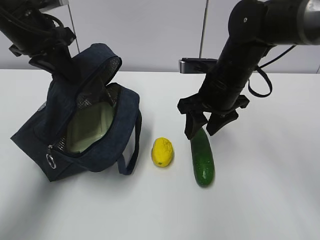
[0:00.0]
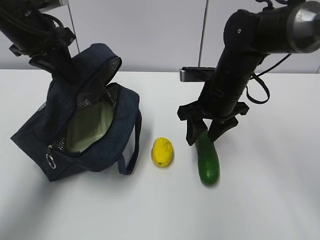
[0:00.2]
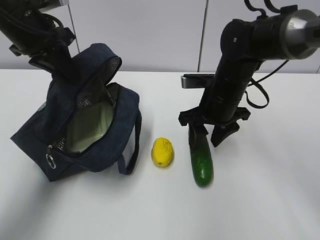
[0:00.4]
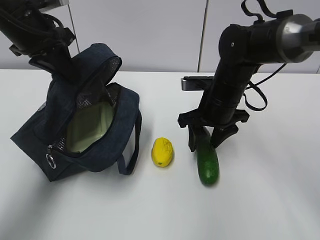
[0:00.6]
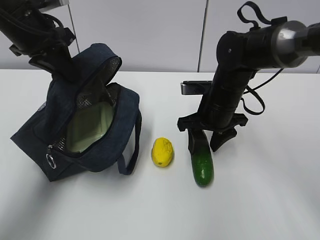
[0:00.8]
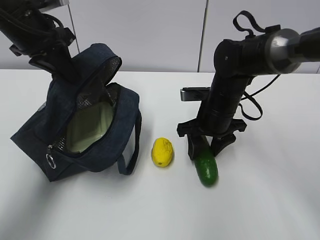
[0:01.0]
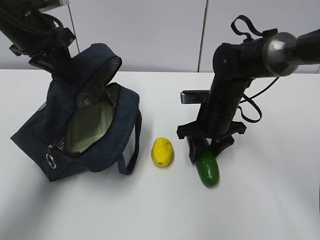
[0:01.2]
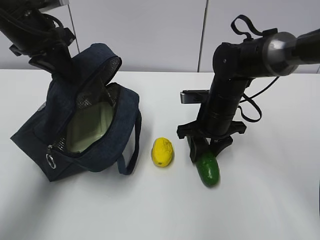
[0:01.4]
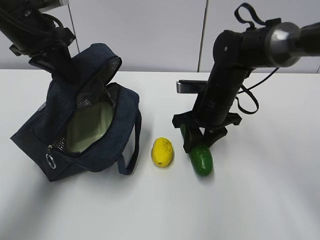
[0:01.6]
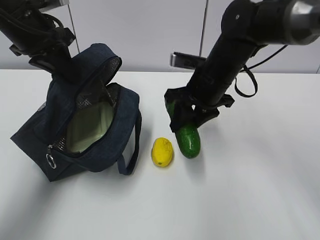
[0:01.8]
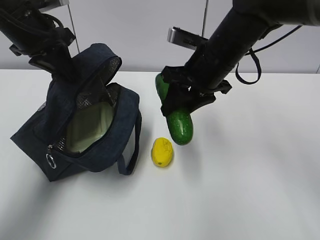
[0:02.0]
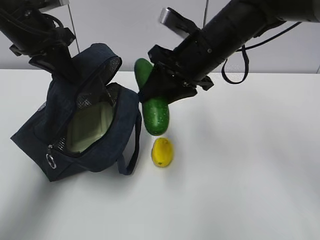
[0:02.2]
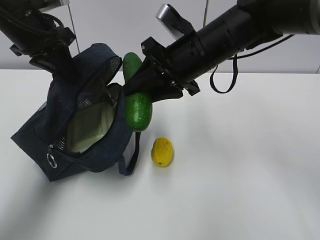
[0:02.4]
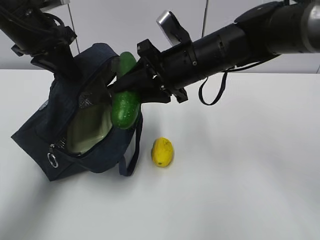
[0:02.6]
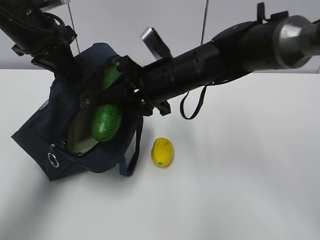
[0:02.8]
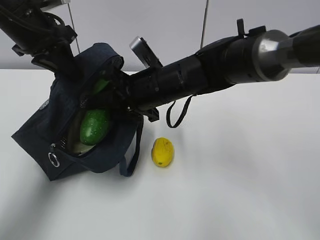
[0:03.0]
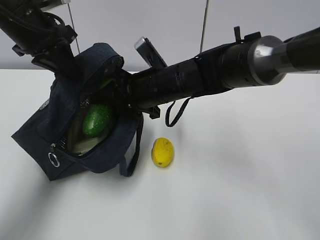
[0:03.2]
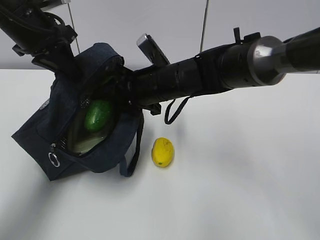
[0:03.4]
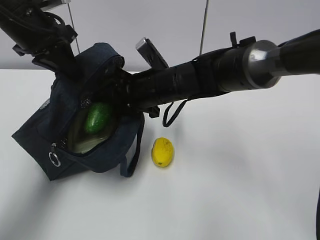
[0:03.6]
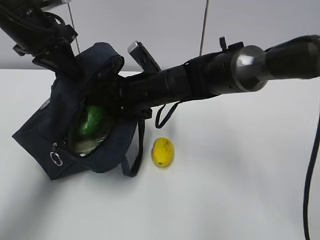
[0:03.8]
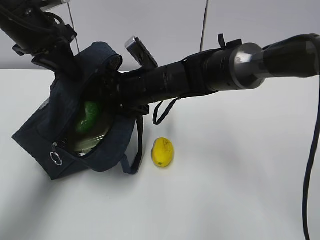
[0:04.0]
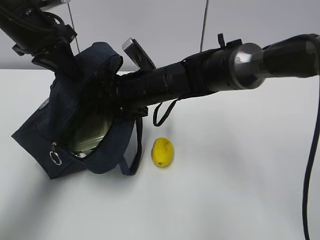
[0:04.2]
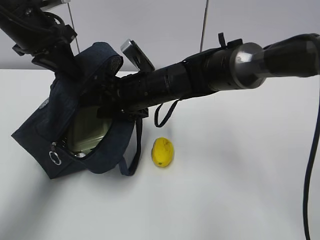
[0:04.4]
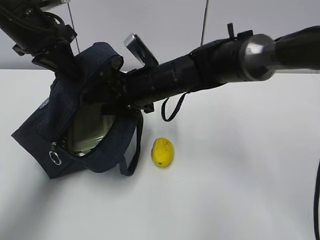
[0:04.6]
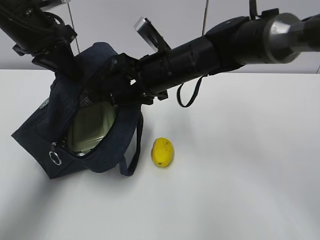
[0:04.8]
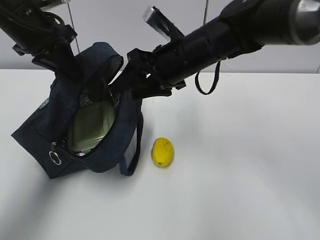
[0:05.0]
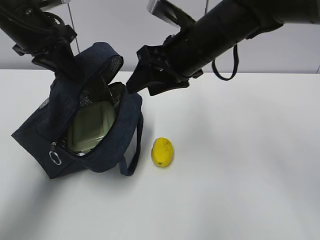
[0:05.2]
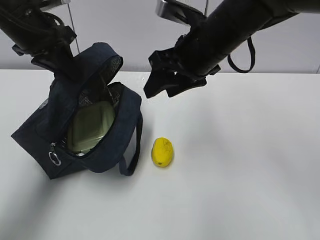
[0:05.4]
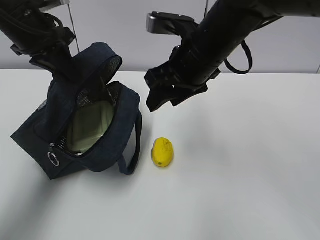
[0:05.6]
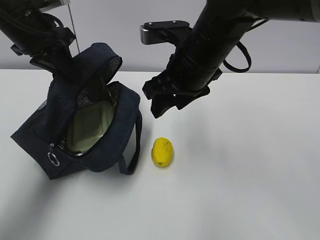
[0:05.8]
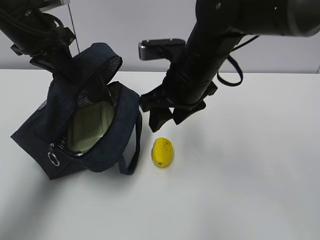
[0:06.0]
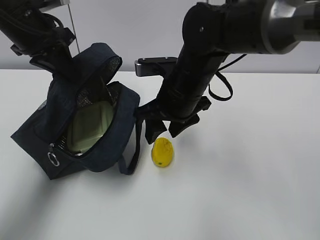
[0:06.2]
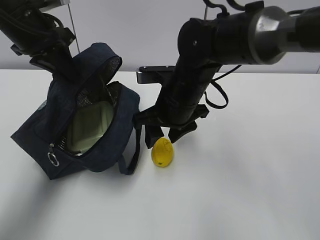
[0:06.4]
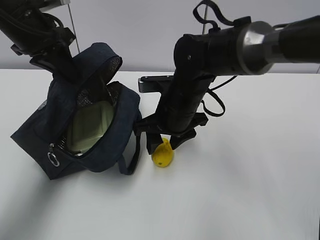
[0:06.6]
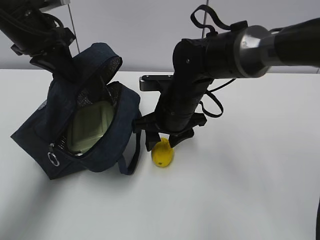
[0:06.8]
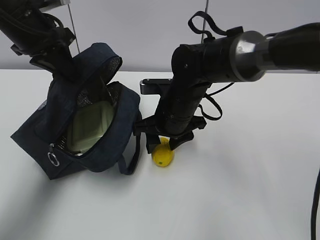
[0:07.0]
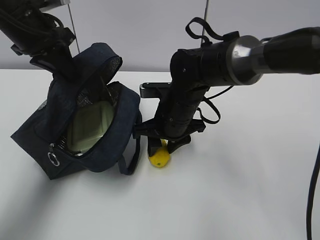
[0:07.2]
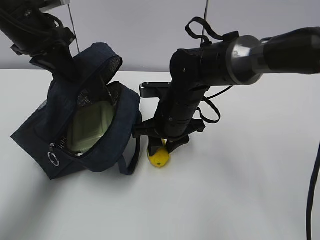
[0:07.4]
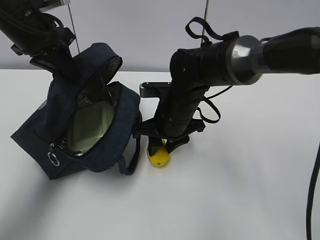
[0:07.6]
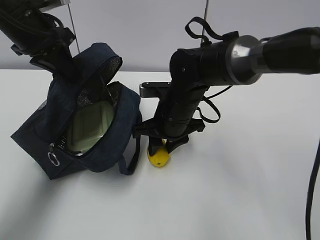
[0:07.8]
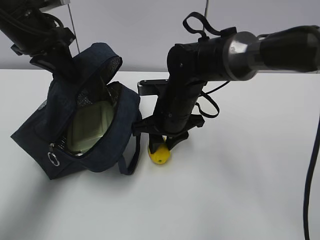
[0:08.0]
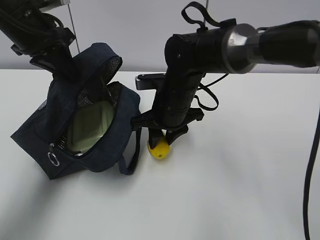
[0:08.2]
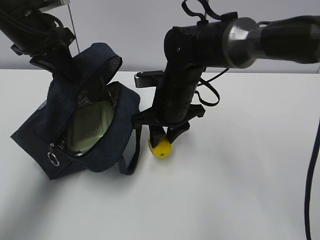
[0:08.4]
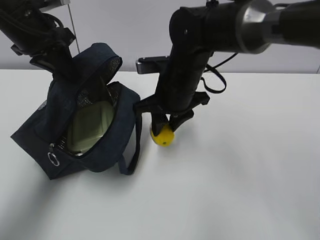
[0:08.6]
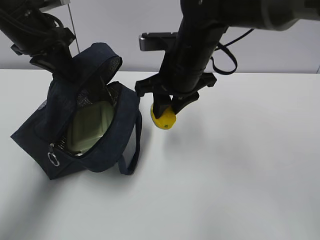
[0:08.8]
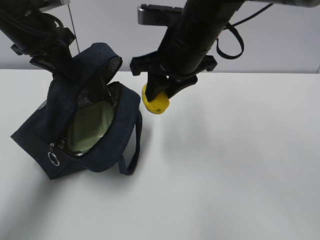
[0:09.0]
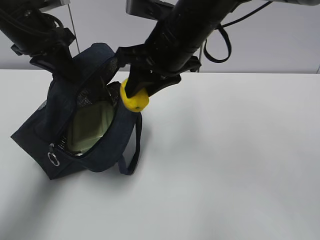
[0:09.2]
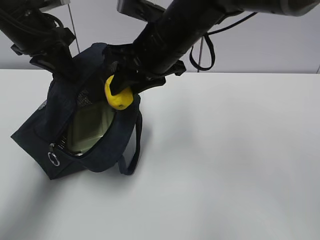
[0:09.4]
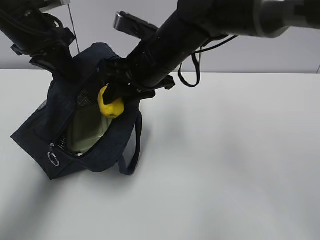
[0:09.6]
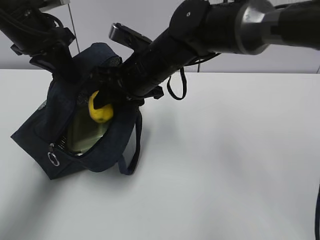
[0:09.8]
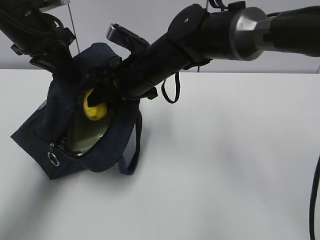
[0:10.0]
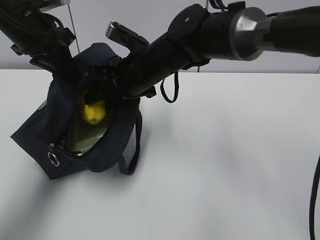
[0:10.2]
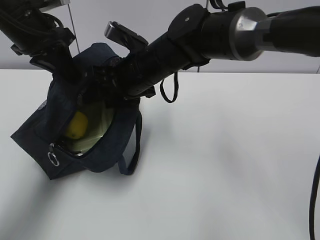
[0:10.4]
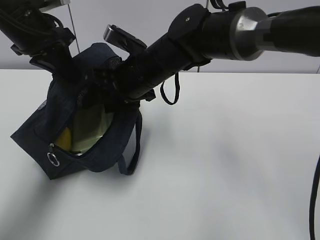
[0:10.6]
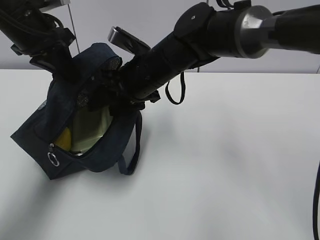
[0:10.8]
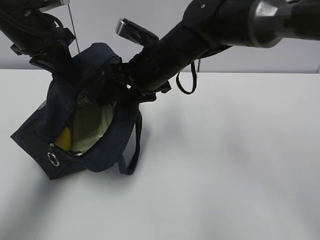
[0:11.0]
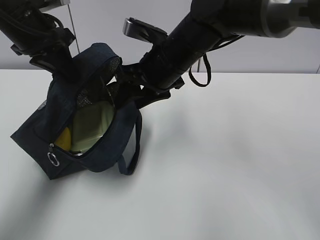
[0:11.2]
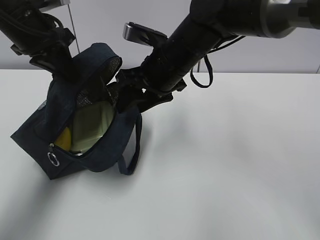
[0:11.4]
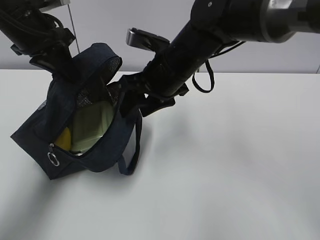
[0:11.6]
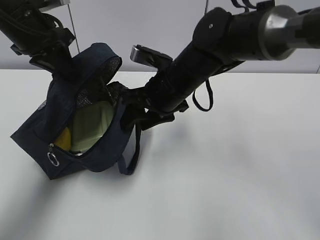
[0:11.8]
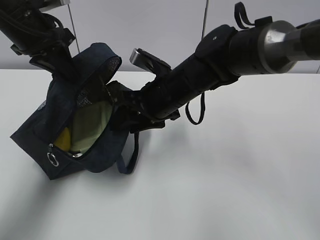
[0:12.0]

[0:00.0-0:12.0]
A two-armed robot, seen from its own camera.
Step, 0:00.0 to 0:02.4: Grab the lemon with your right hand.
Step, 0:04.8 to 0:06.2: Grab the lunch bag with your right hand.
Step, 0:06.4 to 0:10.2: Move the lunch bag to the right.
0:01.6 to 0:03.0: The right gripper shifts about 10 cm to the left.
0:03.0 to 0:04.4: The grippers stay close to where they were, moving slightly.
0:04.4 to 0:06.0: The right gripper travels to the right and upward by about 10 cm.
0:06.0 to 0:07.6: The right gripper shifts about 10 cm downward.
0:07.6 to 0:09.0: The right gripper goes about 15 cm upward.
0:09.0 to 0:10.4: The right gripper heads downward and to the left, covering some 10 cm.
0:10.4 to 0:12.0: The right gripper moves about 5 cm.

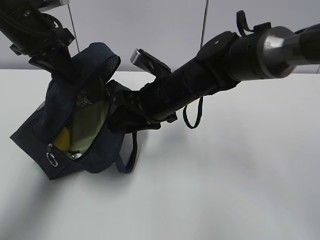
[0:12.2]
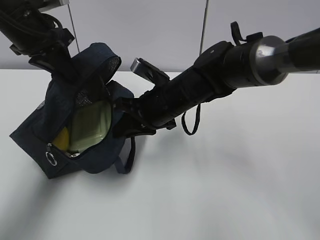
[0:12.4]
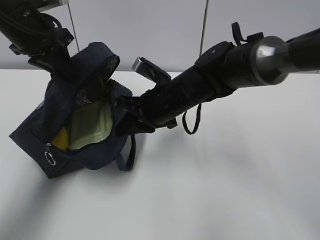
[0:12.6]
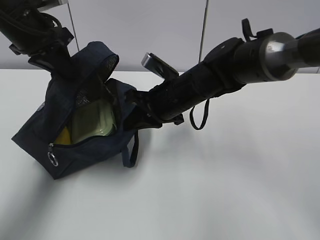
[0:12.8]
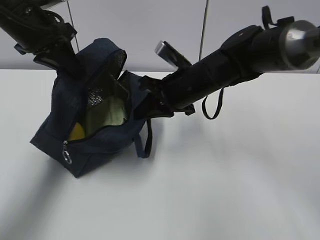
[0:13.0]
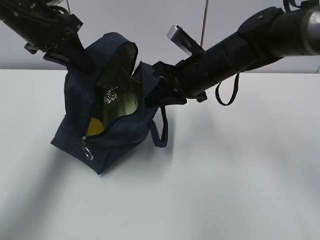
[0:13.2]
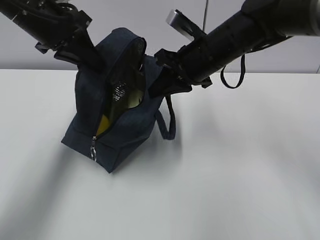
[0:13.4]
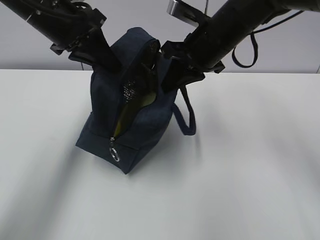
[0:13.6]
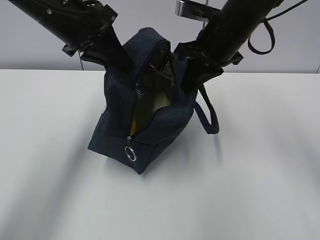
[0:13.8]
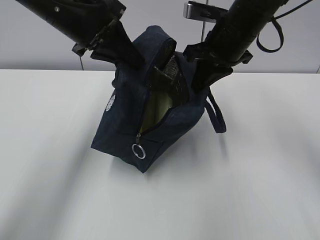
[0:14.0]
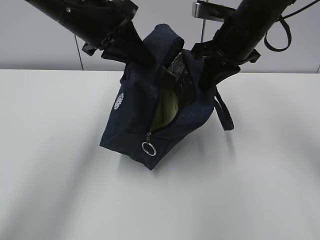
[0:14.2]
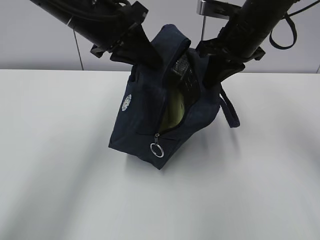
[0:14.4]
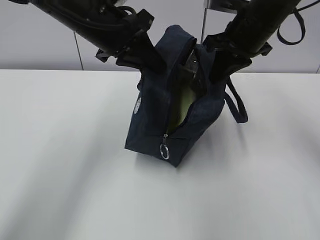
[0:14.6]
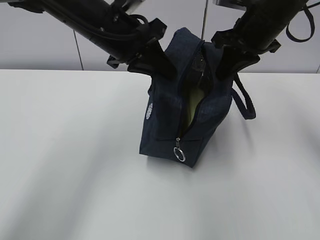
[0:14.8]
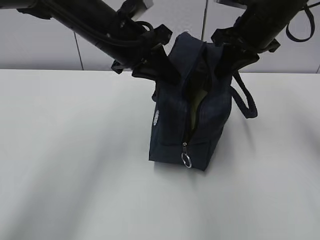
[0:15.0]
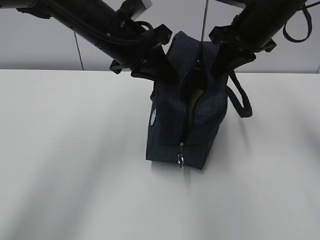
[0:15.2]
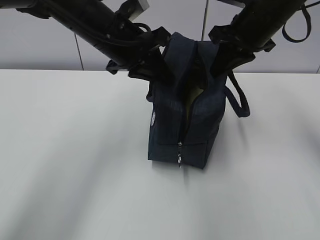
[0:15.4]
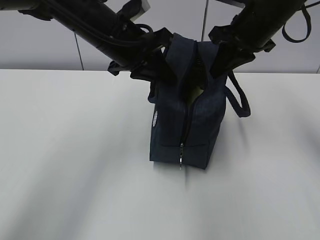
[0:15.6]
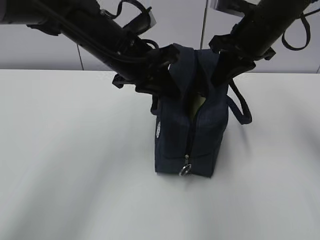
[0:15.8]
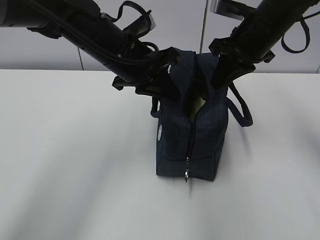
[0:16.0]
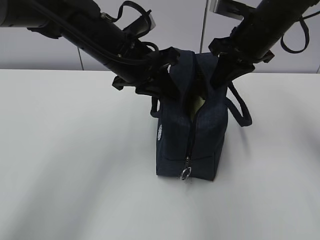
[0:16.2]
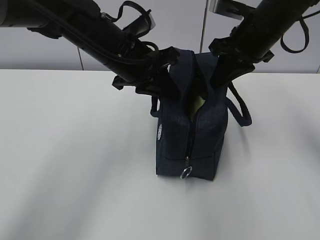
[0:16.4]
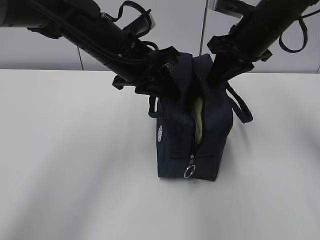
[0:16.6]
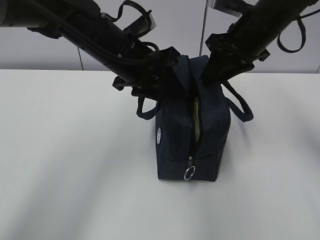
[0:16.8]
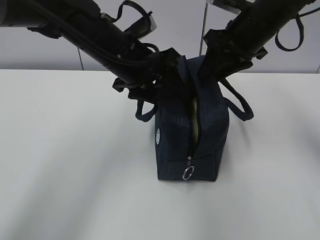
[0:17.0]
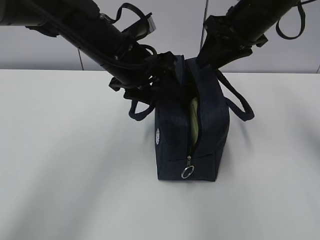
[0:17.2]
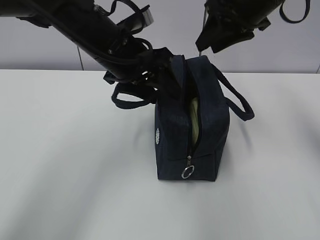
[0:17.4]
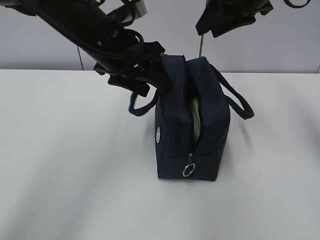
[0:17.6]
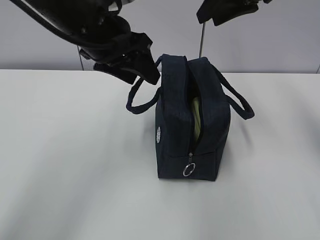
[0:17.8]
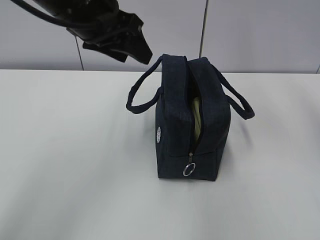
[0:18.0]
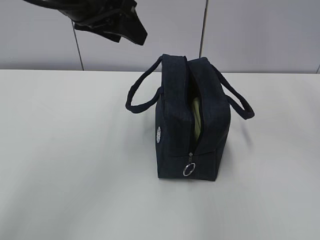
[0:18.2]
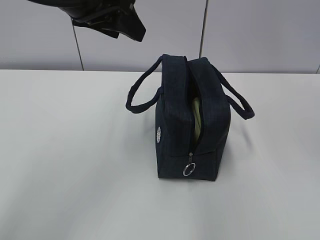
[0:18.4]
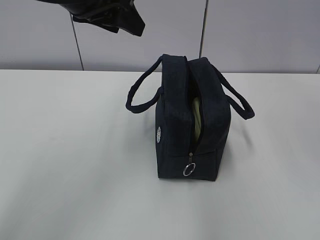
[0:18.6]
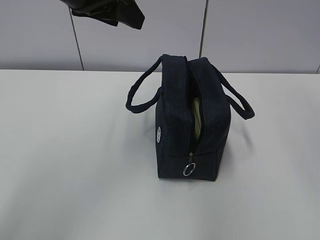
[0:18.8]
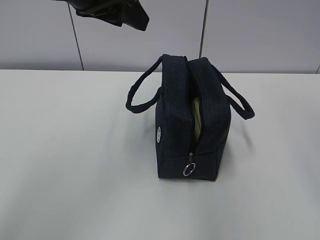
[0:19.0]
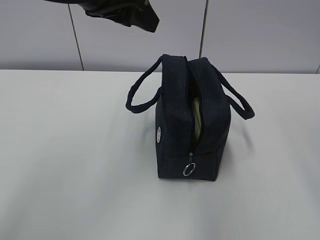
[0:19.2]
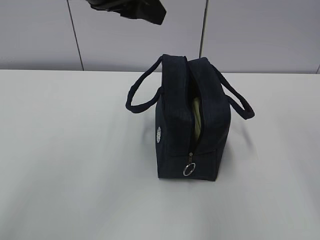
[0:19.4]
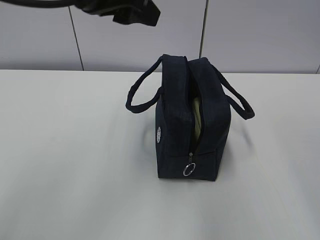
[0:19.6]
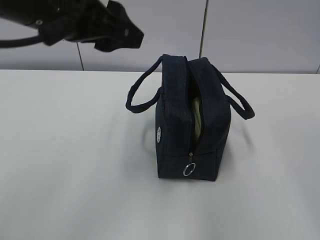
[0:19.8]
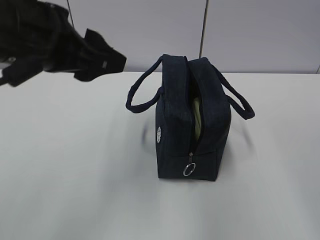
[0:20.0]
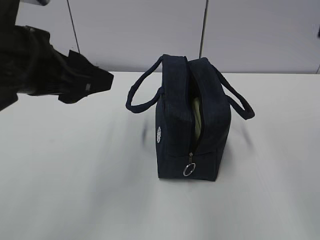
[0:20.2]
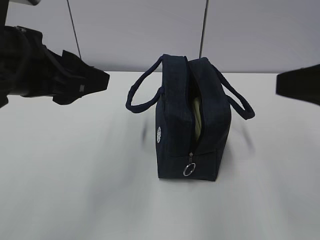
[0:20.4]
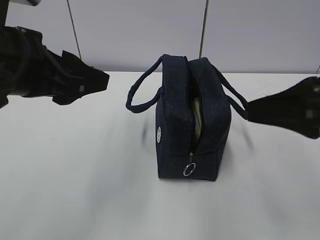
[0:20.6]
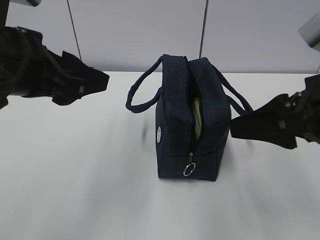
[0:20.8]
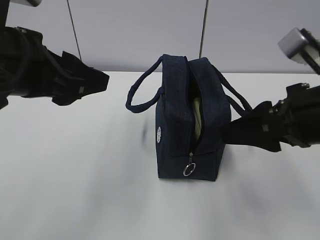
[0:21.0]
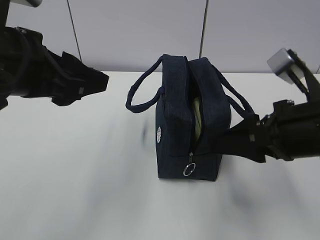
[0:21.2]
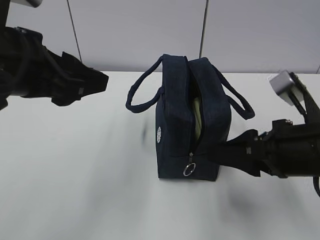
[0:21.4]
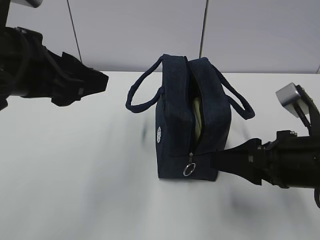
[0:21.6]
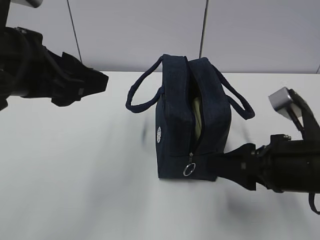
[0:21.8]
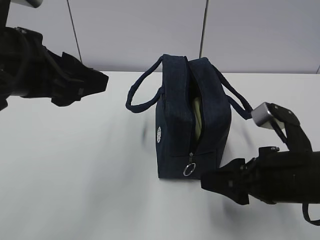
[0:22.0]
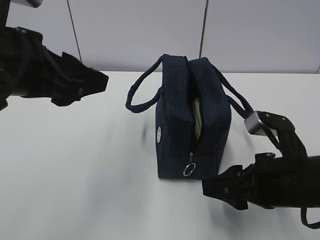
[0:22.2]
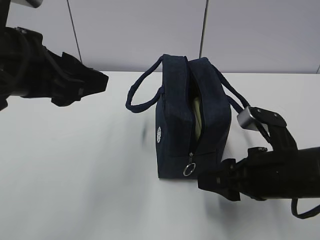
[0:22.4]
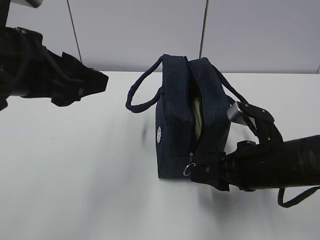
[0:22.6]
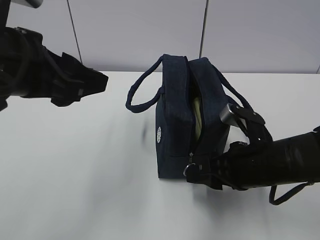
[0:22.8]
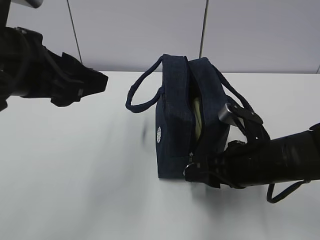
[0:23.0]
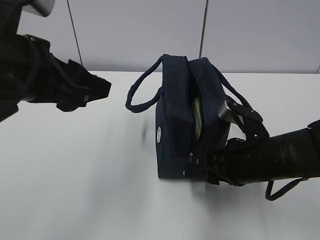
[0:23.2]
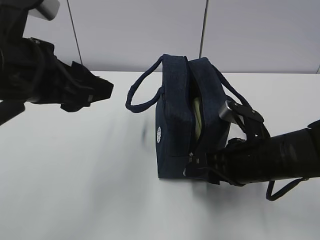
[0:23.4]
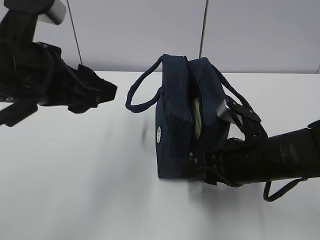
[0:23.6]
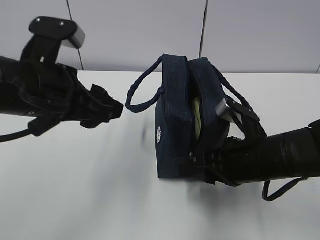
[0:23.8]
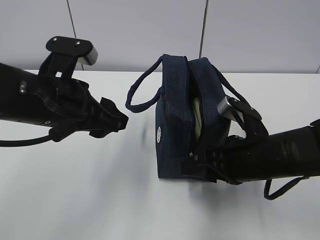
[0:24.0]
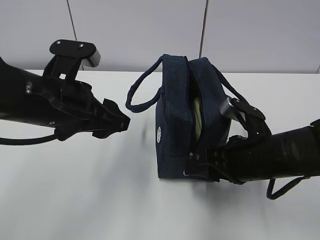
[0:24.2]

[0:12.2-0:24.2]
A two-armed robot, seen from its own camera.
0:12.2 to 0:13.8: The right gripper is displaced upward and to the right by about 15 cm, and closes its fingers. The left gripper shifts about 5 cm to the right.
0:13.8 to 0:15.2: Both grippers move to the right, roughly 5 cm.
0:15.2 to 0:16.6: The grippers make only small movements.
0:16.6 to 0:18.2: The left gripper moves upward and to the left, roughly 10 cm, and opens up, while the right gripper shifts some 20 cm upward.
0:18.2 to 0:19.8: The right gripper shifts about 25 cm backward and downward; the left gripper is displaced backward by approximately 5 cm.
0:19.8 to 0:21.2: The right gripper travels downward and forward by roughly 15 cm. Meanwhile the left gripper heads backward, covering approximately 5 cm.
0:21.2 to 0:22.6: The right gripper travels downward by roughly 10 cm.
0:22.6 to 0:24.2: The left gripper goes about 10 cm downward.
